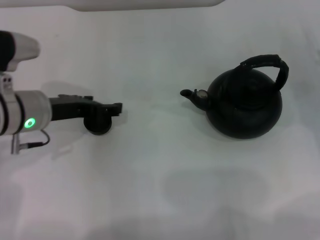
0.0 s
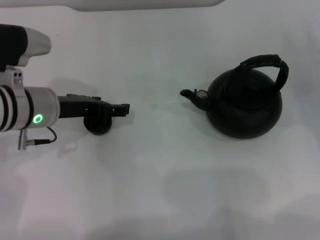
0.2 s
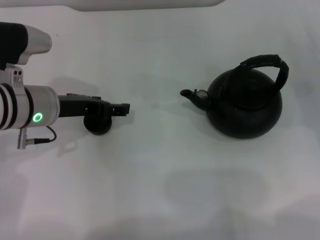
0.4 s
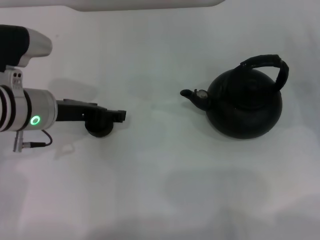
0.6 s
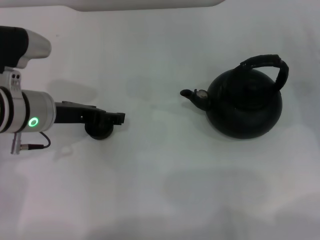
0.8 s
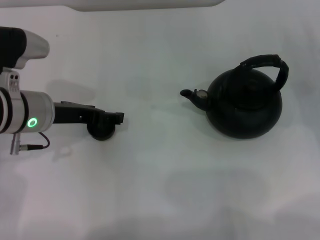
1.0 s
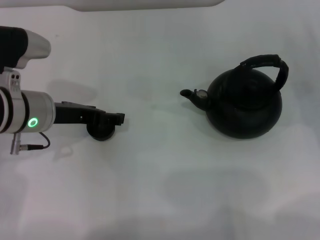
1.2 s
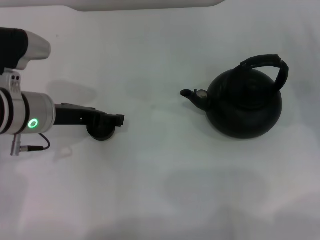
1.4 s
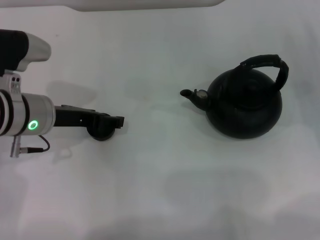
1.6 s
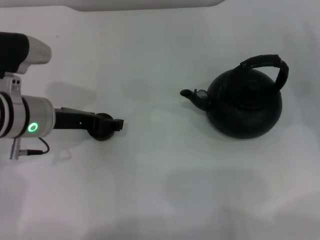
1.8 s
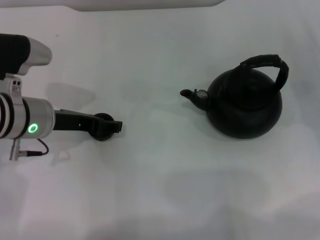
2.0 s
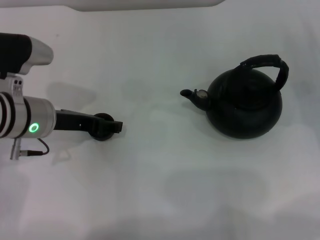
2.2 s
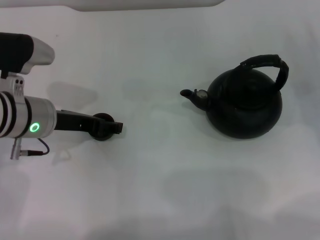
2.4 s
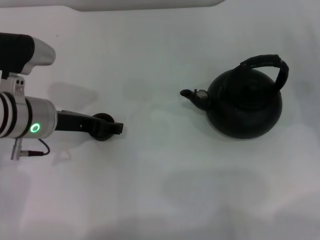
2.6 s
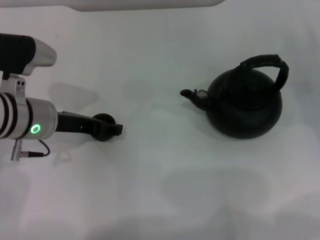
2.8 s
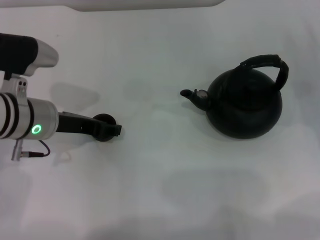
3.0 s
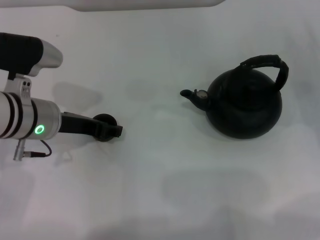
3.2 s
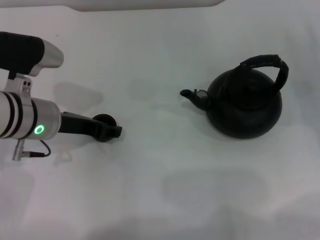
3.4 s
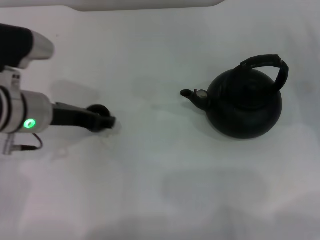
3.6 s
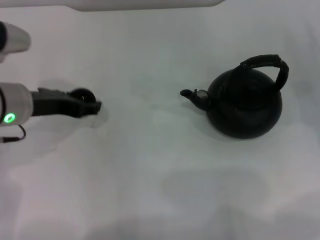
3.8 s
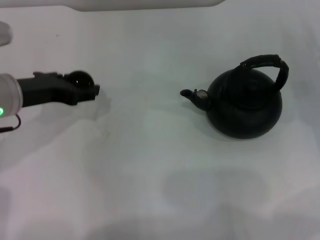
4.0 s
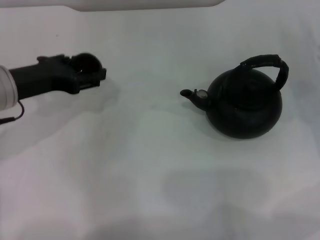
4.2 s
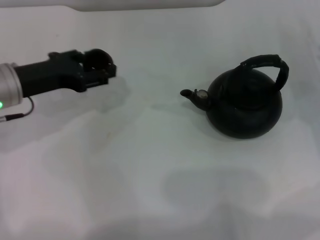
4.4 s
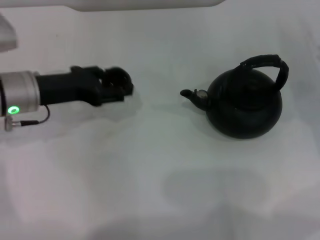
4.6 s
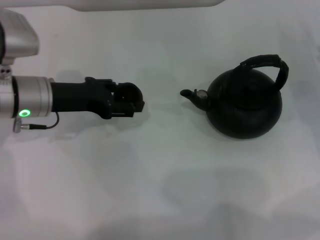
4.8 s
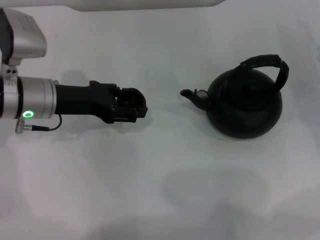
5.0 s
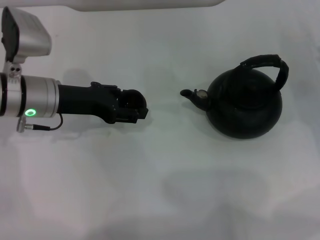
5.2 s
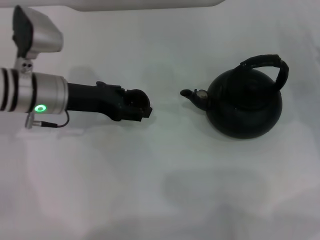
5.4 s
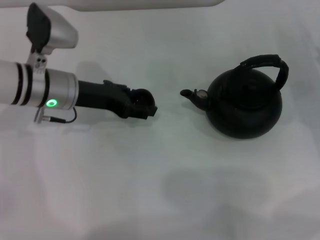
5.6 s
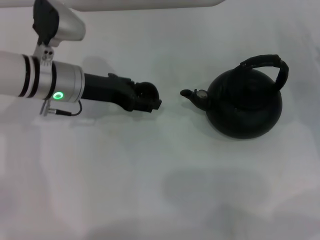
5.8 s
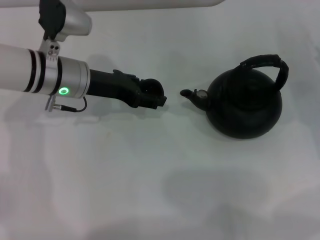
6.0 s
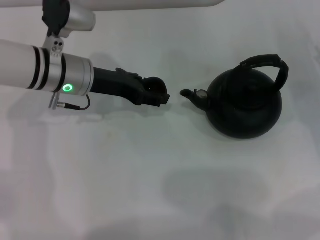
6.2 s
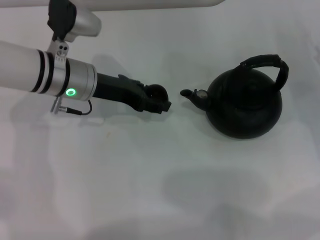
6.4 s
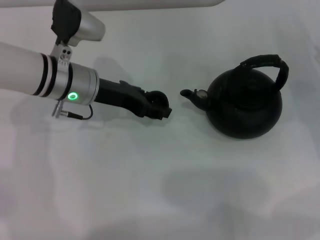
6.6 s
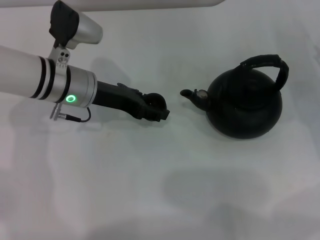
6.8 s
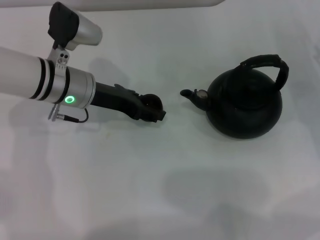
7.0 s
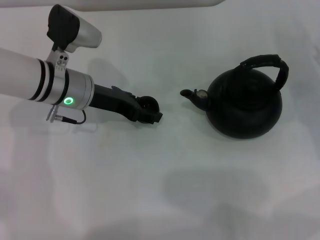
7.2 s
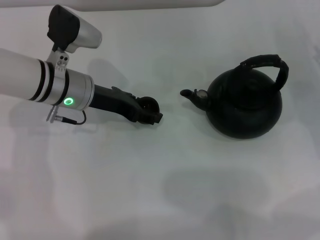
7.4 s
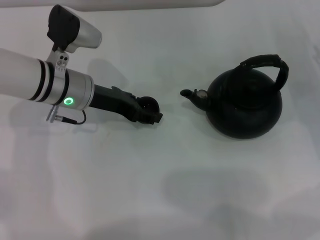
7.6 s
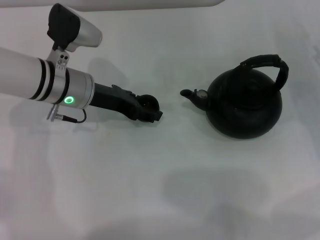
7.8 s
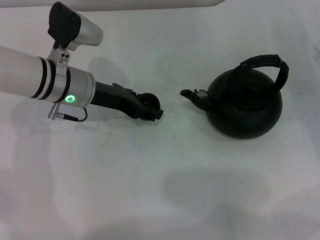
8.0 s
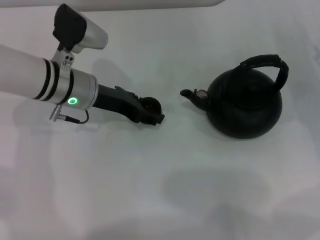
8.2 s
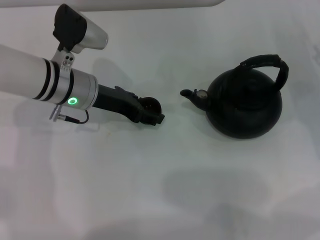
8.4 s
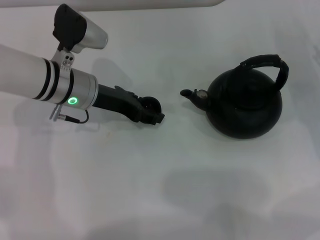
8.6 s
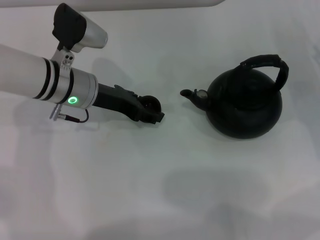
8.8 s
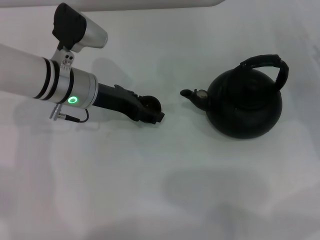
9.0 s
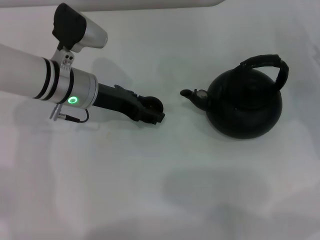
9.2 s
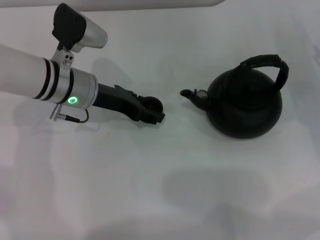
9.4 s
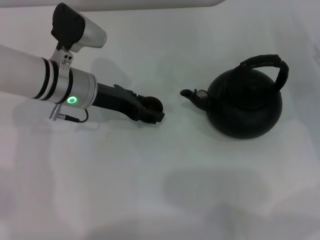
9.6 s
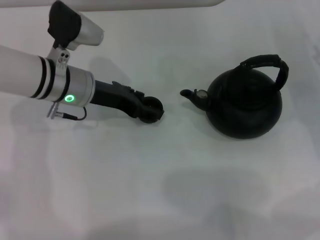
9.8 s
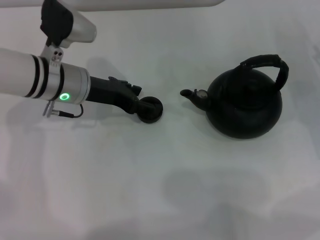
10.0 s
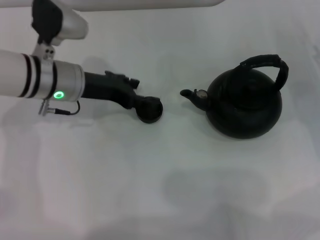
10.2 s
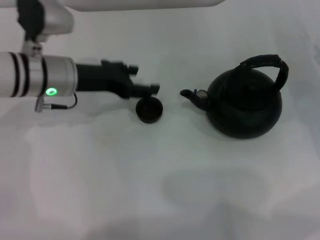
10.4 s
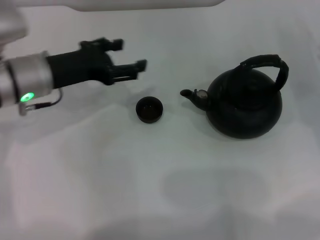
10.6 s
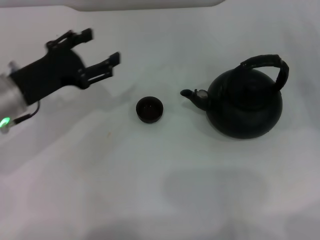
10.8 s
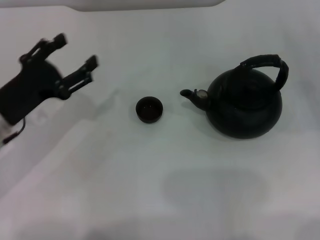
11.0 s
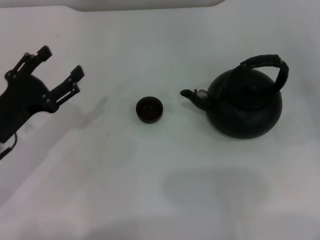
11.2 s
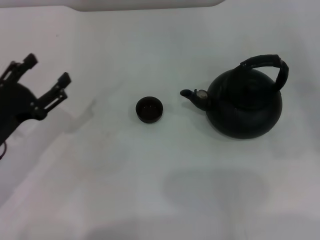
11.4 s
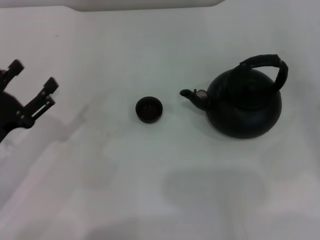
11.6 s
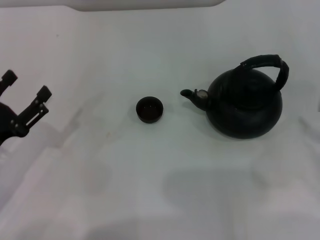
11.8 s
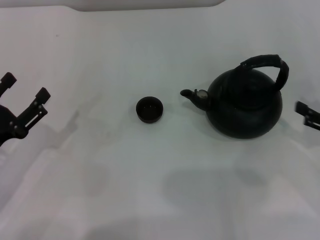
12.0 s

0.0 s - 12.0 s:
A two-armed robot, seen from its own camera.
Task of the whole recording: Grasp the handle of the teapot with one hand and pour tea into the teacup.
Step, 0.0 s - 3.8 s: Pick up the teacup with the left gripper.
Step, 4.0 s - 10.4 s: Place the teacup in the center of view with the left gripper.
0.0 s - 1.6 s: The grippers move only a little.
1.6 s - 3.0 s: Both grippers stay about where they are.
3.0 s - 4.4 s: The left gripper shifts approximately 5 cm to the left.
4.4 s - 6.0 s: The left gripper heads to the right and forward, covering some 10 cm.
6.0 s - 7.6 s: The grippers stay close to where they were, moving slightly.
7.6 s - 9.0 s: The two grippers keep their place.
9.0 s - 10.4 s: The left gripper opens.
10.4 s - 12.0 s: The left gripper heads backward, to the left and downward, covering some 20 cm. The right gripper is displaced backward by about 10 cm.

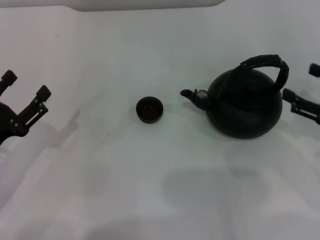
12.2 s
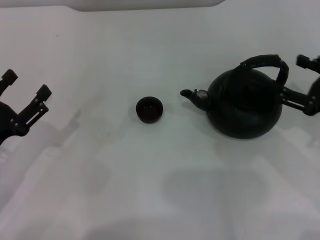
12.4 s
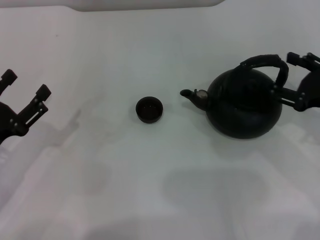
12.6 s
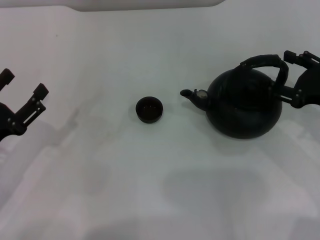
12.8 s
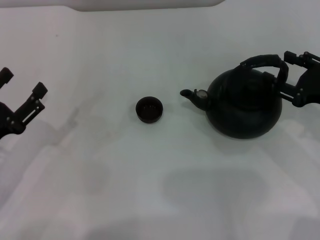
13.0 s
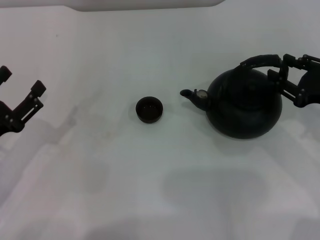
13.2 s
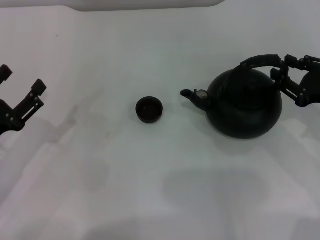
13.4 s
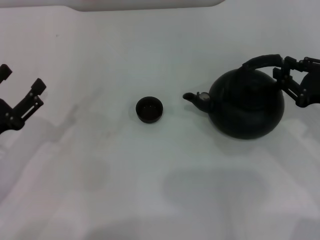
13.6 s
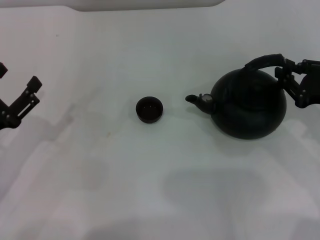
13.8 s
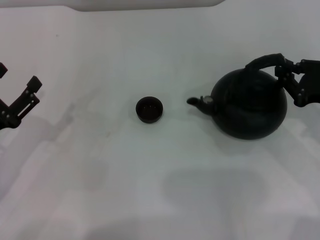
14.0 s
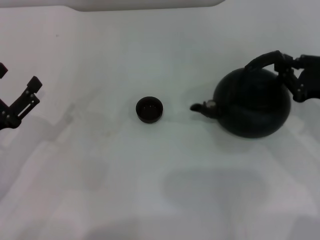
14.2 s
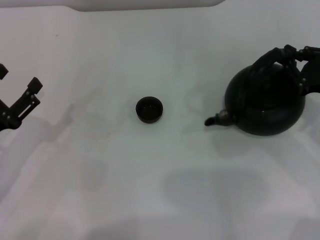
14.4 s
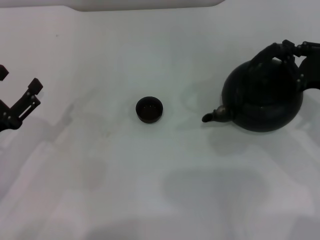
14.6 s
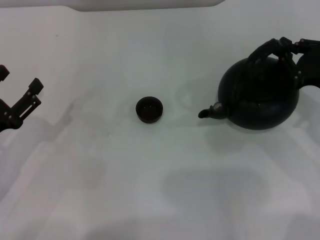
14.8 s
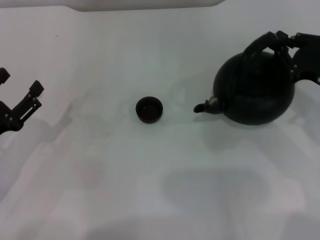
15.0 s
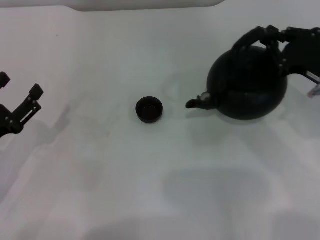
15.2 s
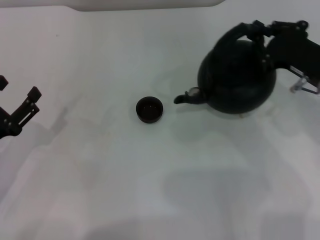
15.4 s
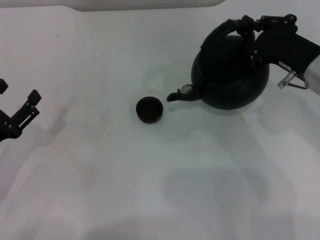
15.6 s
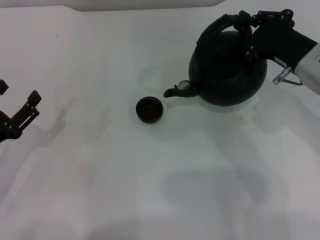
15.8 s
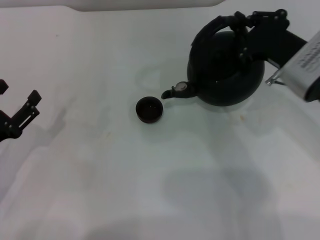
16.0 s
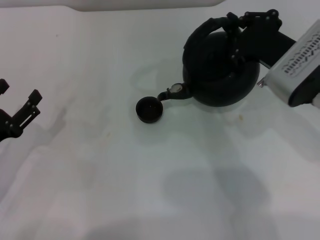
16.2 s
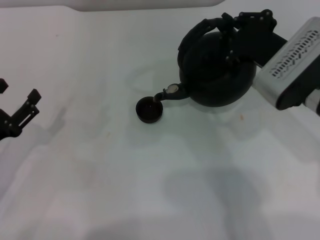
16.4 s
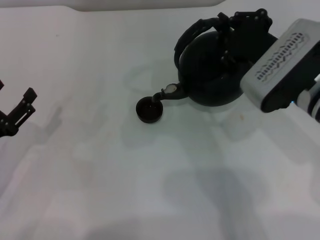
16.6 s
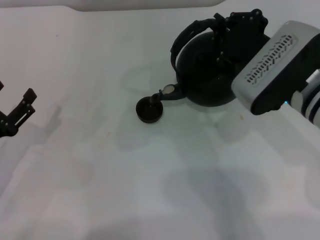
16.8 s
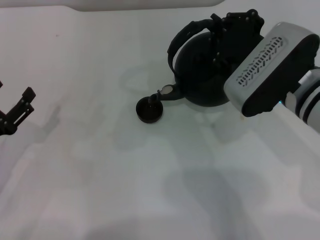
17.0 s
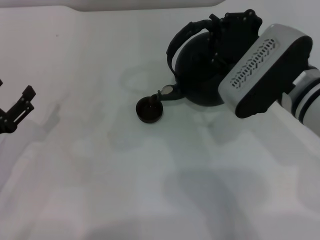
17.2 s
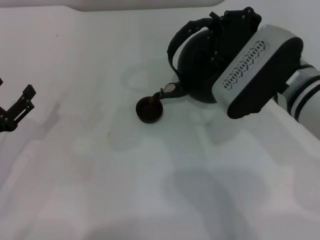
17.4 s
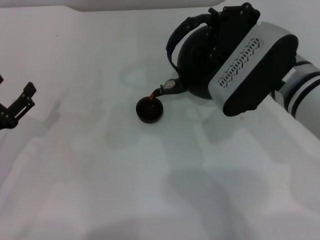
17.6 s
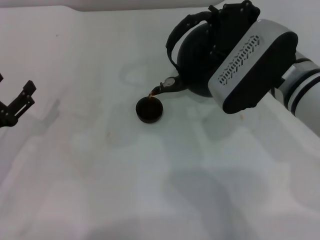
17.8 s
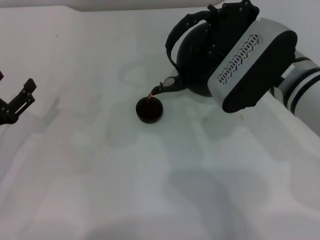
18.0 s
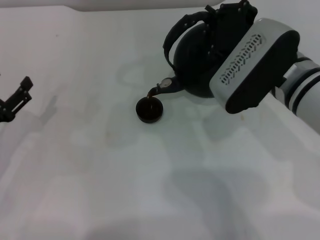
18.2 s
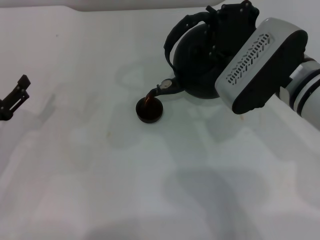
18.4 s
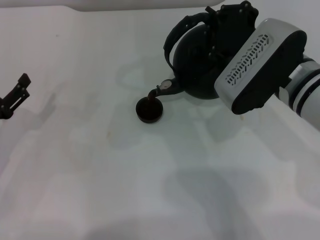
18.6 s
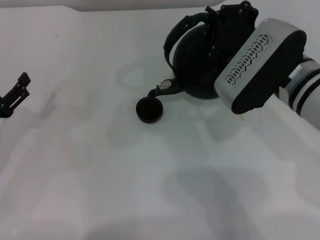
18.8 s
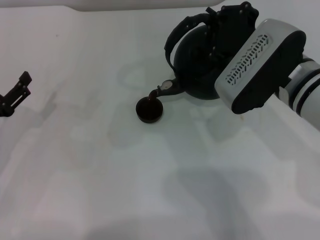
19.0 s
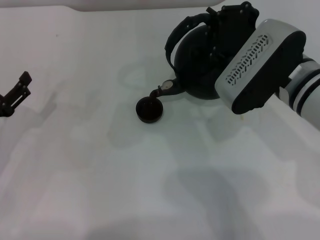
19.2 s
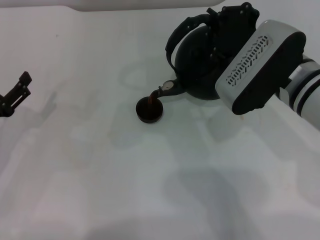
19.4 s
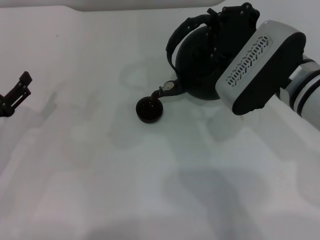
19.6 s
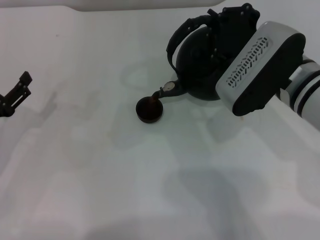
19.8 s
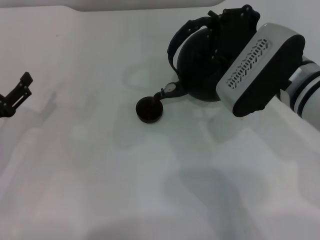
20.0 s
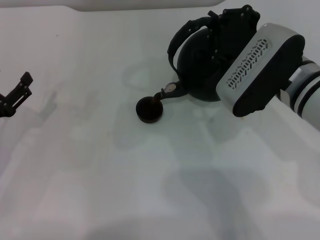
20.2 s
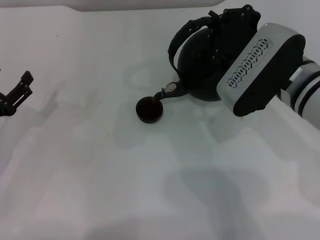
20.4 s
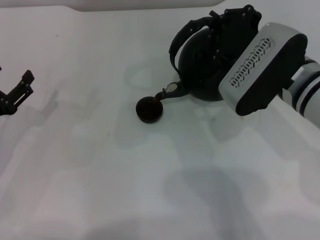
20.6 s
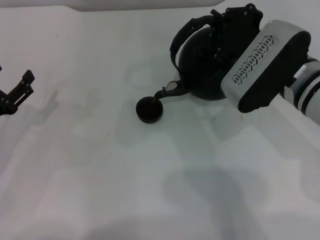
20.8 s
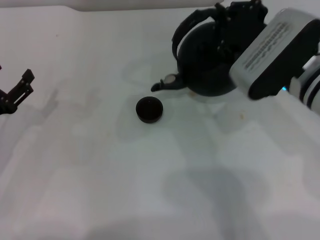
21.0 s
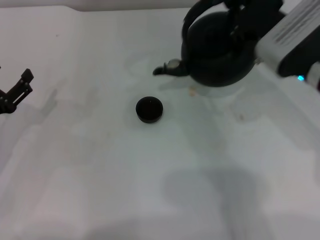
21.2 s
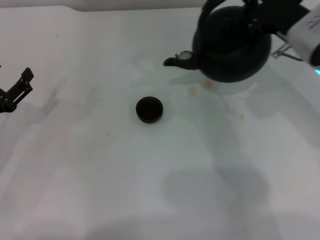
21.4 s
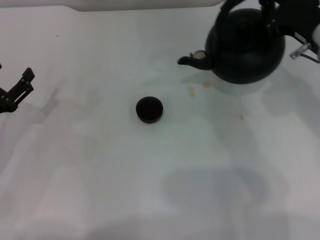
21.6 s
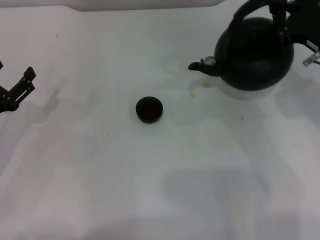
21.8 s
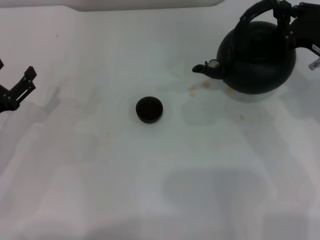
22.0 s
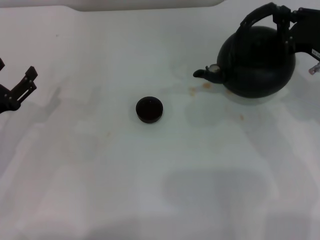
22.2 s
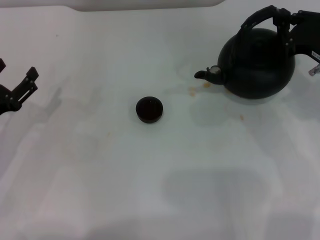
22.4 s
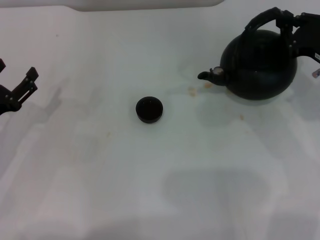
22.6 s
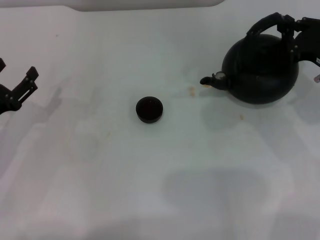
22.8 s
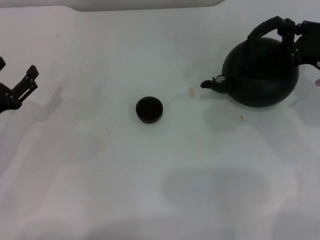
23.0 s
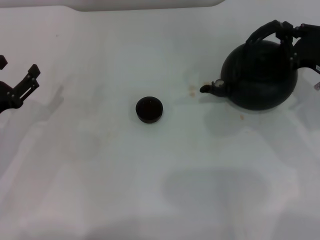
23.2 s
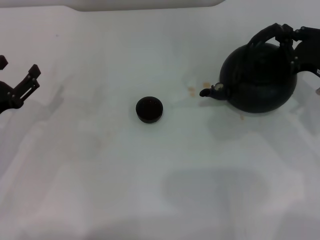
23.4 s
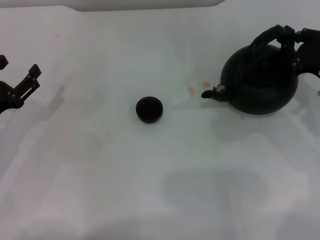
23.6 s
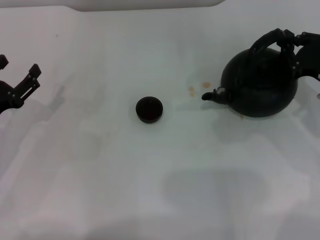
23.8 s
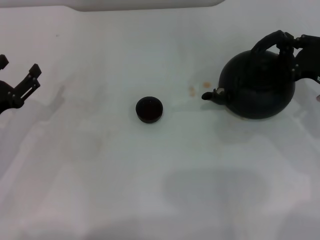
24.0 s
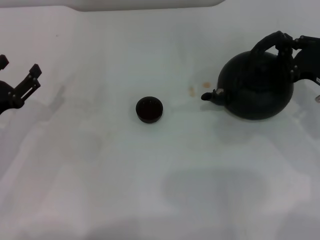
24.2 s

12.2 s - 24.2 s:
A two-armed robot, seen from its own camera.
Task of the whole recording: Grasp the handle of the teapot with one hand and pour tea into the teacup.
Step, 12.2 s - 14.8 s: Pick up the teapot with the right gripper.
Step, 15.2 s - 20.8 s: Pour tea into the teacup with the right gripper.
12.2 s - 13.8 s: The right gripper closes its fingers.
13.8 s - 15.2 s: There are only small adjustments of the grippers.
15.2 s - 16.6 s: The right gripper is displaced to the left by roughly 10 cm.
16.6 s - 18.2 s: The grippers stay close to where they were, moving slightly.
18.2 s - 19.8 s: Both grippers stay about where they are.
19.8 s - 21.2 s: The grippers stay close to where they were, moving slightly.
21.2 s - 22.6 s: The right gripper heads to the right, covering roughly 10 cm.
22.6 s - 24.2 s: There are only small adjustments of the grippers.
